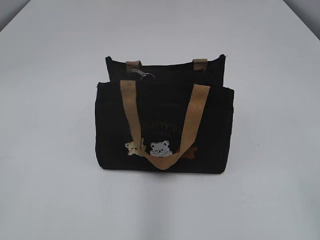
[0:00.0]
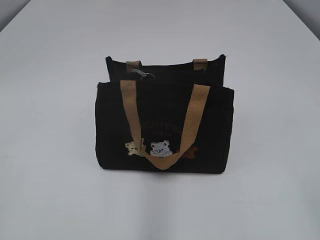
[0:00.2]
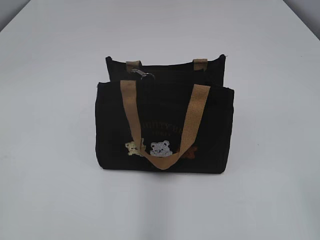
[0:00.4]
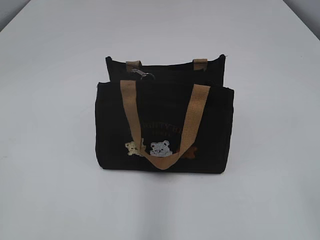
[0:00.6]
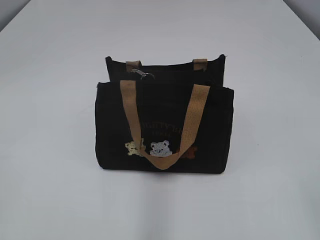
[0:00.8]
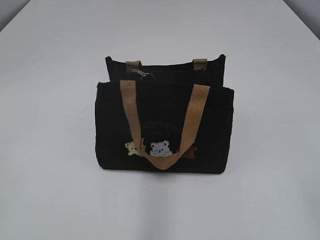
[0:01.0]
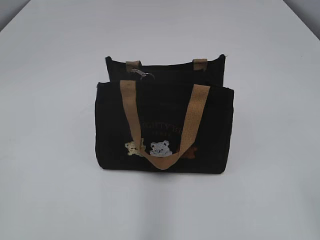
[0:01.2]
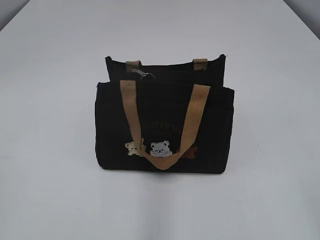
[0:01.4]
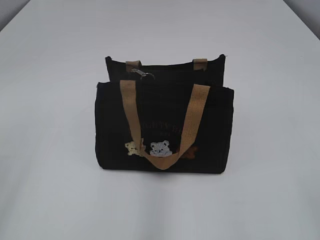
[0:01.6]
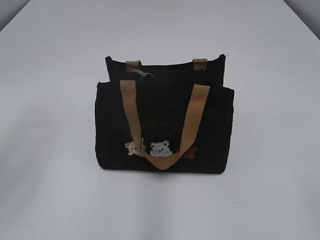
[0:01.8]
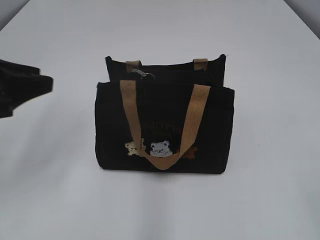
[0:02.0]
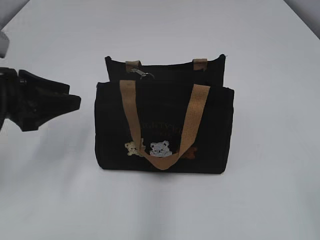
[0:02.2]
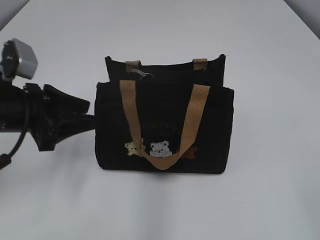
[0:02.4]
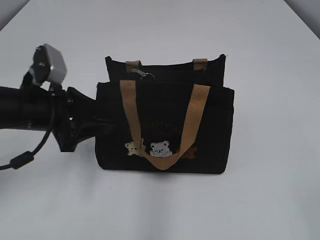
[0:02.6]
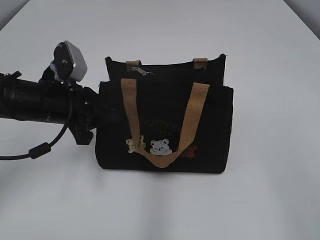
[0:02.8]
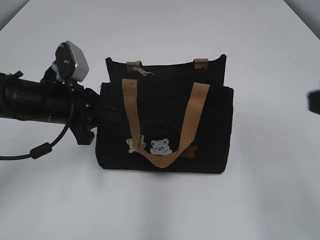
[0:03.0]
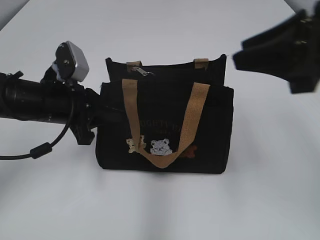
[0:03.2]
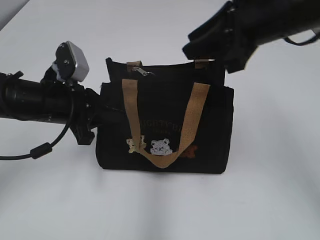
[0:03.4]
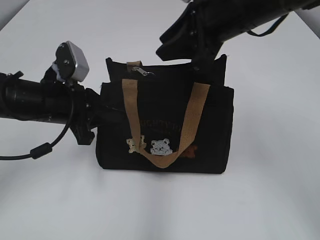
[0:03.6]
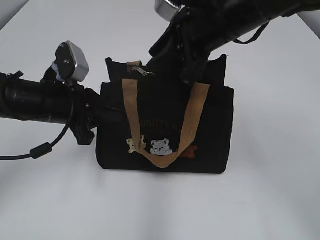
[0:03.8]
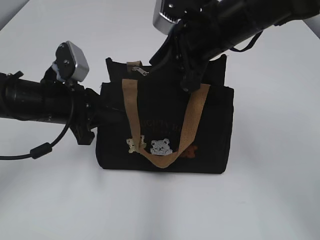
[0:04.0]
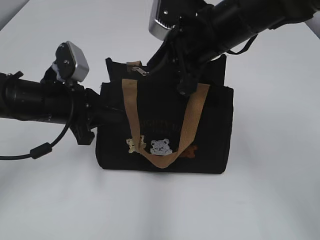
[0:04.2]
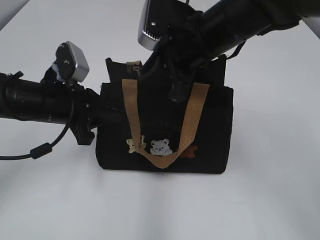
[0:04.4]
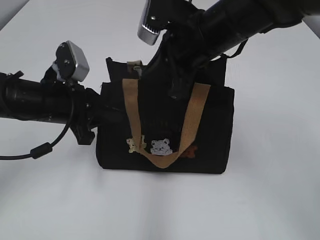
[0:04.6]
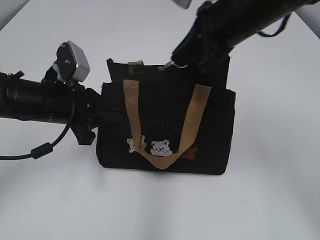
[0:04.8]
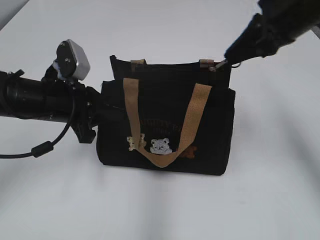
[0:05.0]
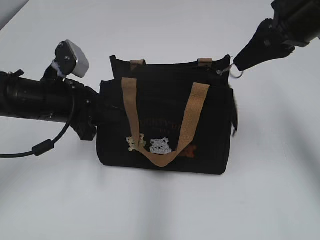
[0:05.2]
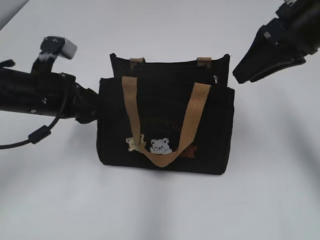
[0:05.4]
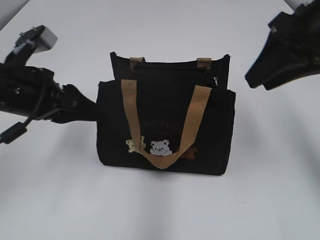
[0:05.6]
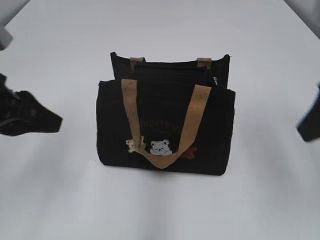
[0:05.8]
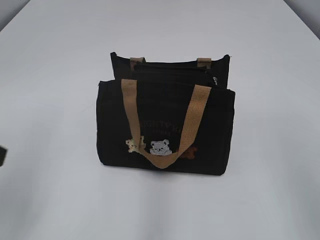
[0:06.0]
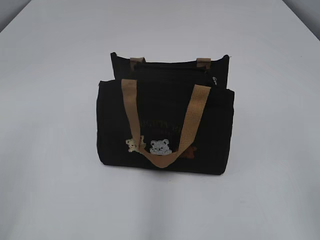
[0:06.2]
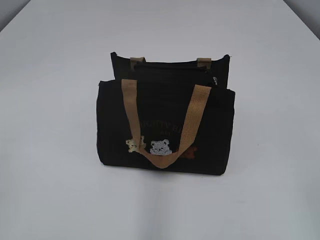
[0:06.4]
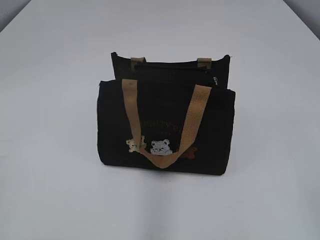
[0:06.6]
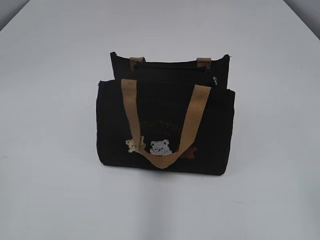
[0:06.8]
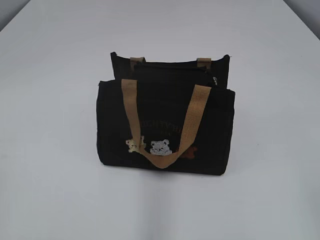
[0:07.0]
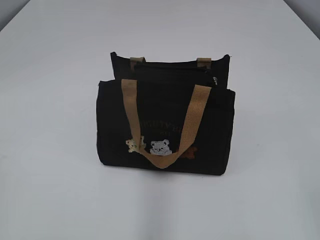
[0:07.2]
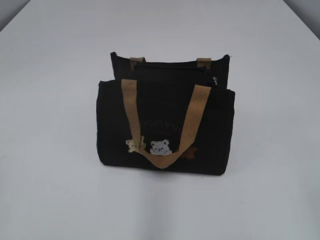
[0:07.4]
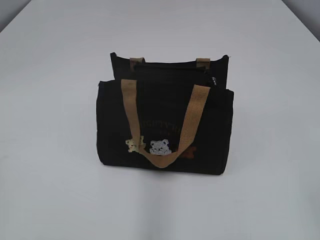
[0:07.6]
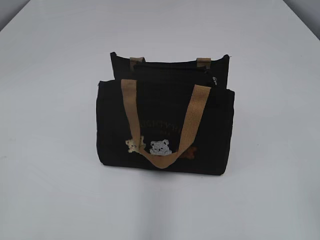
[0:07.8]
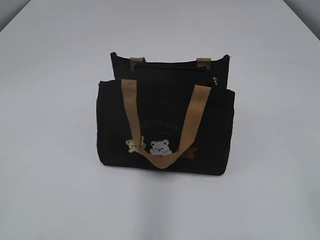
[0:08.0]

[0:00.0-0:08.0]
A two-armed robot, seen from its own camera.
Step, 0:00.0 to 0:05.2: Pull open the zipper with your right hand.
0:01.6 to 0:03.2: The left gripper heads forward, downward and to the right, covering about 35 cm, and closes up, while the right gripper goes some 20 cm forward.
0:03.2 to 0:04.8: The right gripper travels forward and to the left by approximately 20 cm, and closes its fingers.
0:04.8 to 0:06.4: The left gripper heads backward, to the left and upward, covering some 30 cm, and opens up. Meanwhile the right gripper goes some 35 cm backward and to the right, and opens its fingers.
